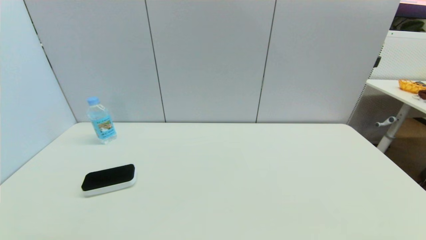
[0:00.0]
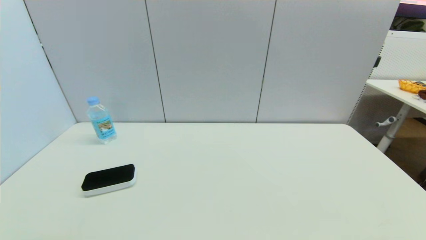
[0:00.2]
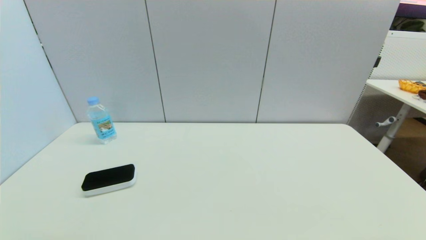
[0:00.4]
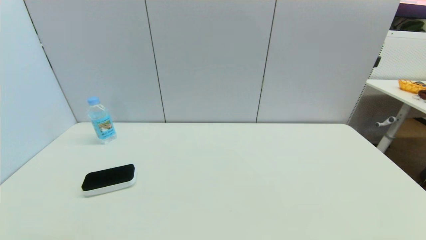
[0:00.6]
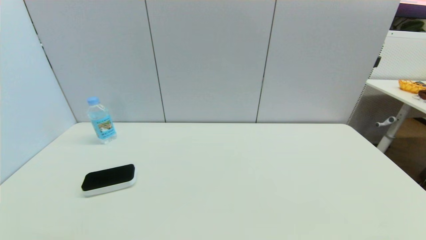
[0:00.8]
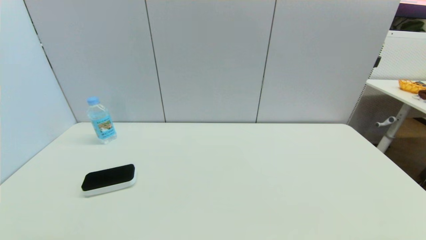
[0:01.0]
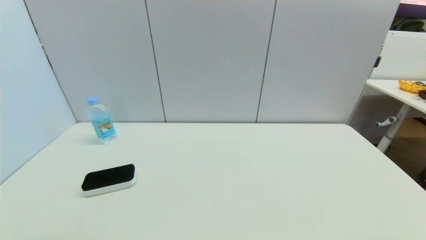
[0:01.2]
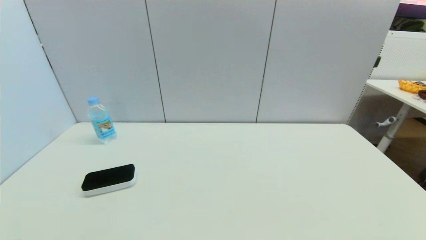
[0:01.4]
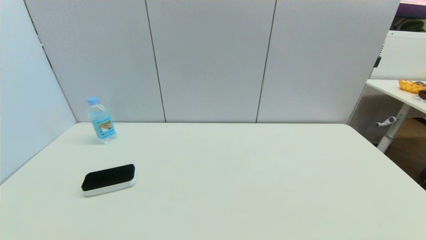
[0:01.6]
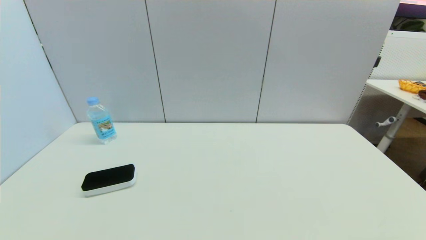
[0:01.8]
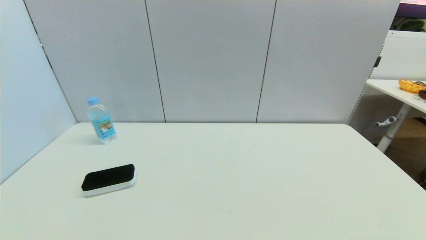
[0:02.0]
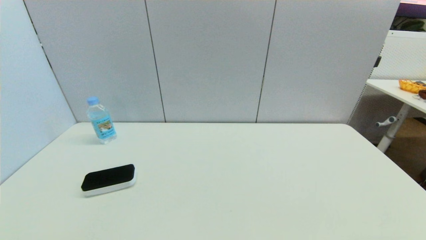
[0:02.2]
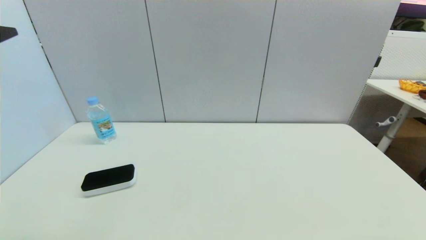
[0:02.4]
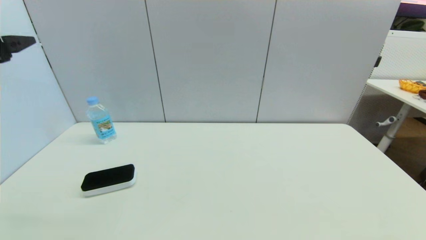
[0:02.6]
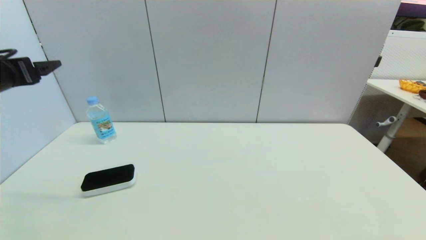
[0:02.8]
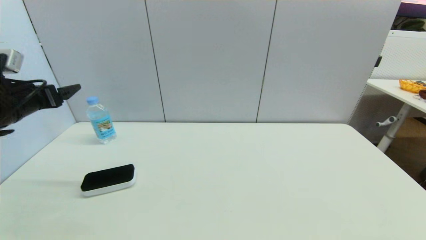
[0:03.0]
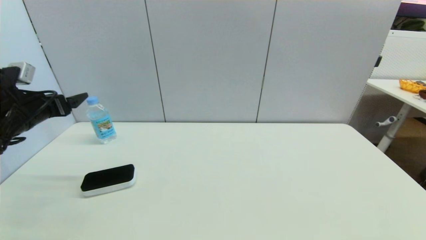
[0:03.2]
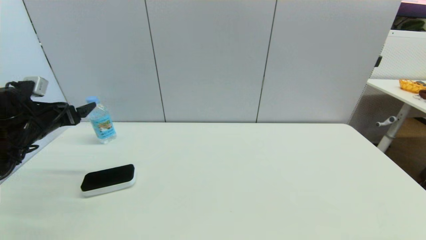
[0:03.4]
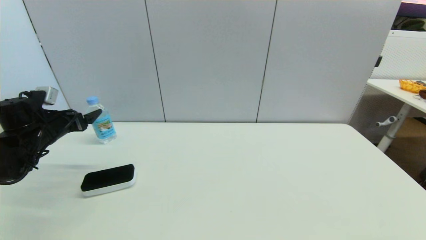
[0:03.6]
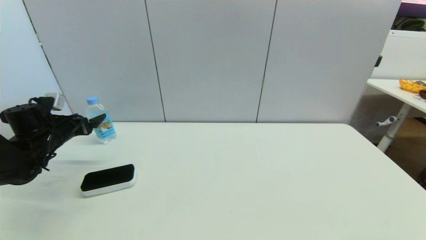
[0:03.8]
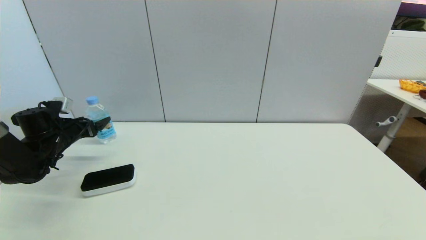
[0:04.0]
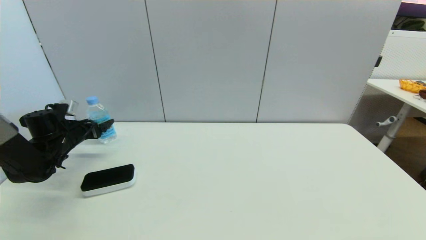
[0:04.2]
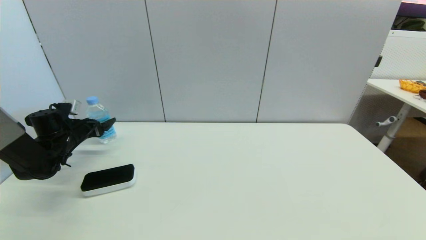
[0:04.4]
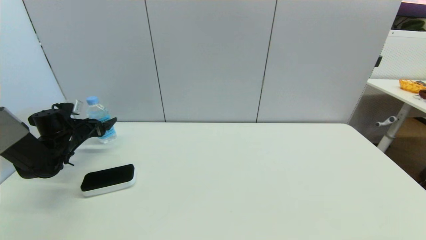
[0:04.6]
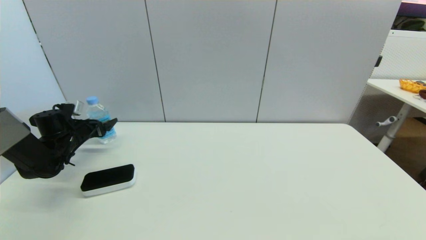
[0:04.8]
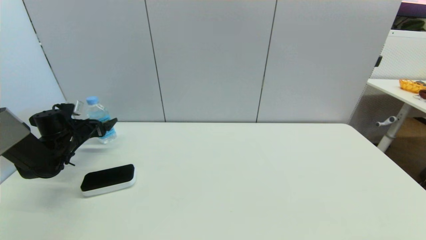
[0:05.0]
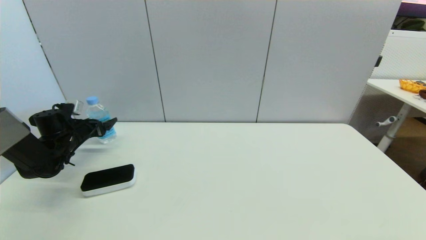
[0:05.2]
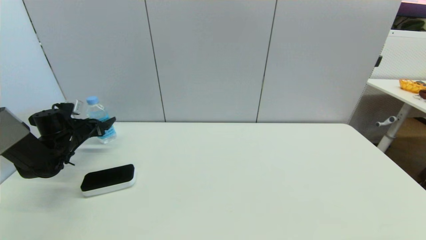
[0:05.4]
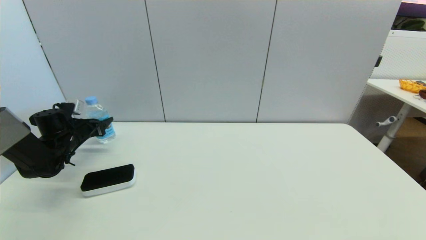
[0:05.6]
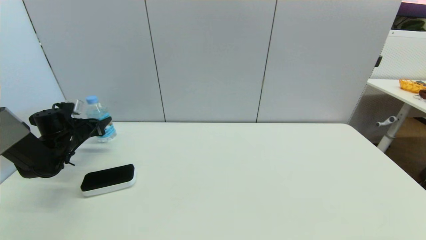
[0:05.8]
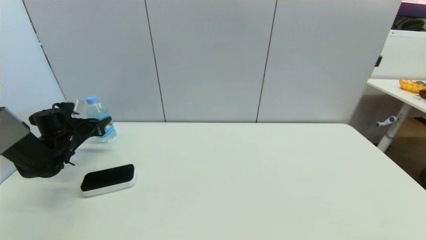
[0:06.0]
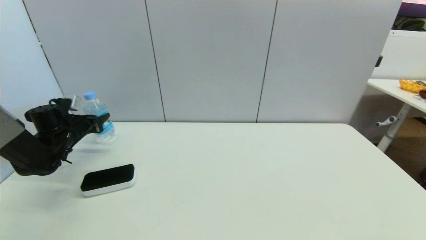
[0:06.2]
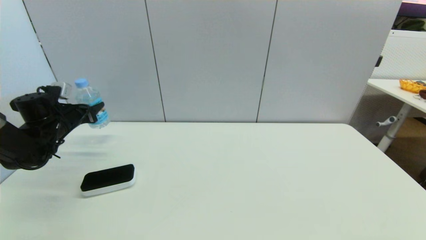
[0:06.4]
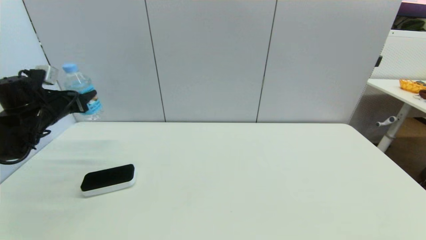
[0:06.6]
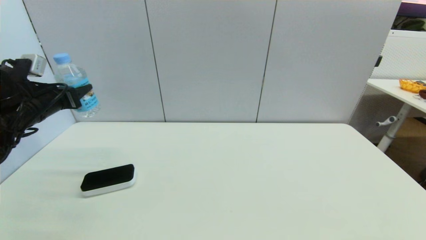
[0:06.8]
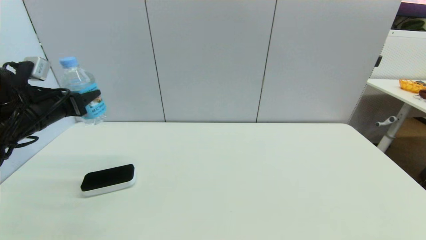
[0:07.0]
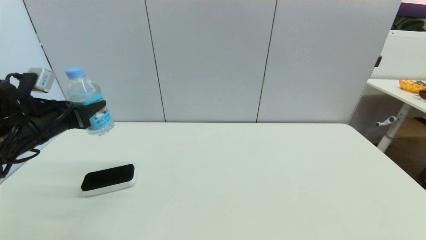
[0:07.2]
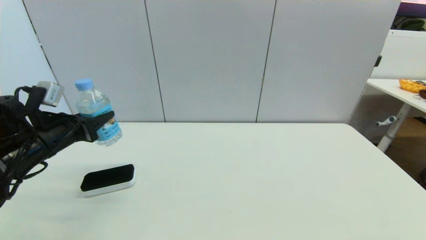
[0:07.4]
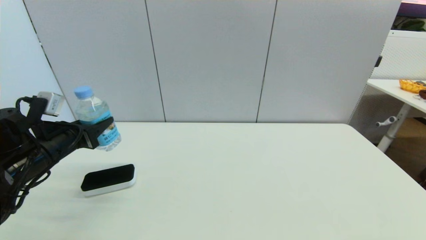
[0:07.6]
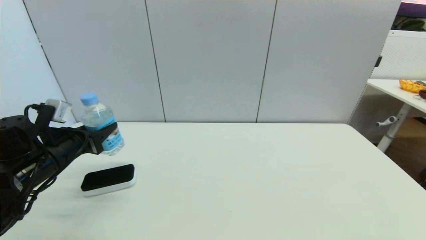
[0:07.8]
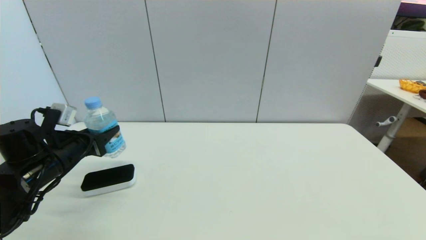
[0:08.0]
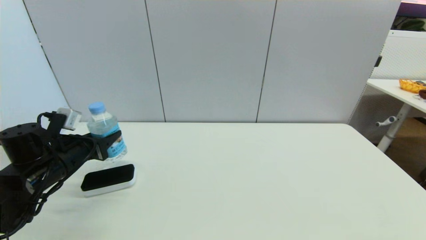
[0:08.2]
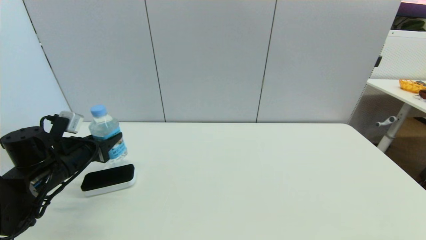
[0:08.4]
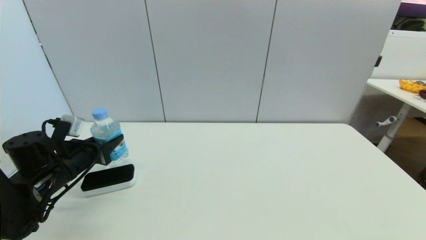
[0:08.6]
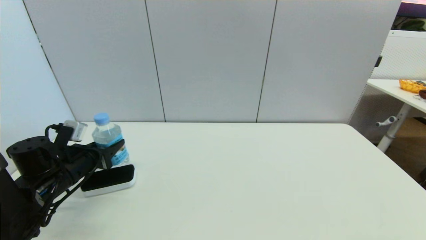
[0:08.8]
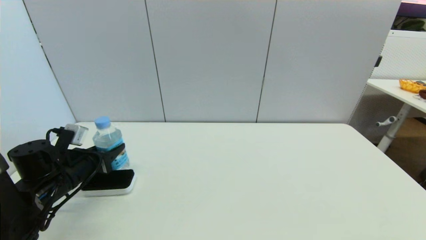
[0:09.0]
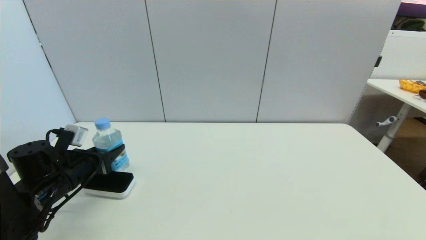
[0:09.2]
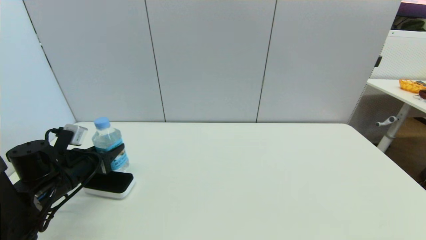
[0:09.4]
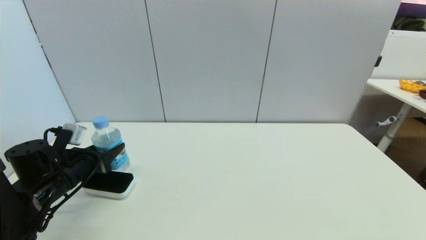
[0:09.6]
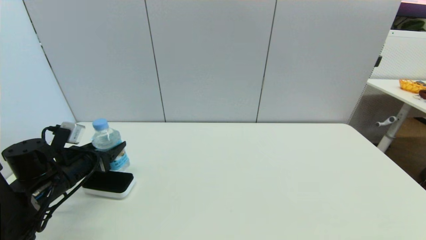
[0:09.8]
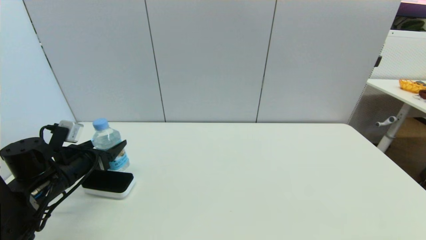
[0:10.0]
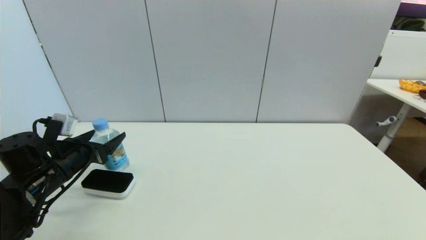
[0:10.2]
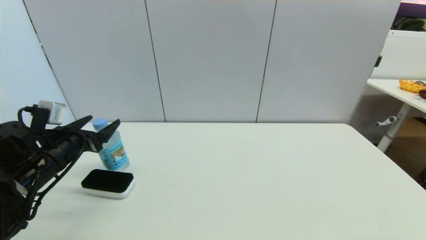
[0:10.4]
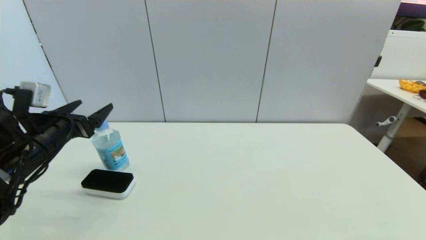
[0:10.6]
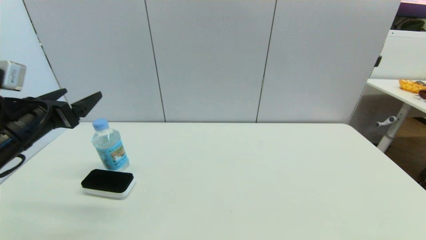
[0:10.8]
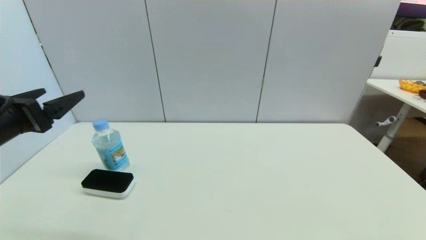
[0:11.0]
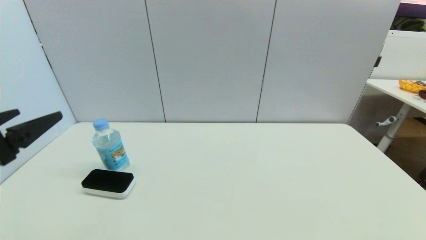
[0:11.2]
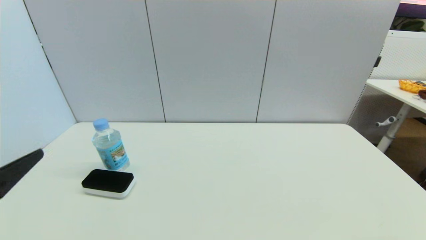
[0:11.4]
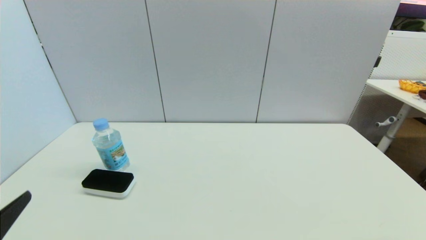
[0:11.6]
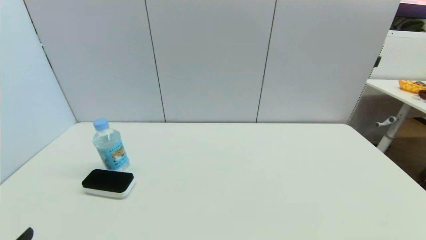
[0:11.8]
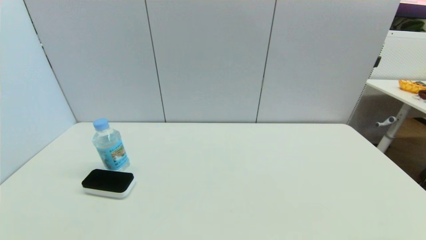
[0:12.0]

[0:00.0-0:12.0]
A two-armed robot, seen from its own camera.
Step, 0:02.4 to 0:05.8: Grasp the soda water with left gripper.
Step, 0:06.0 to 0:09.2: Place the soda water on the table with left gripper.
0:01.6 to 0:03.0: The left gripper travels forward by approximately 30 cm.
0:03.0 to 0:04.4: The left gripper goes roughly 20 cm downward and forward.
0:04.4 to 0:06.0: The left gripper closes.
0:06.0 to 0:07.6: The left gripper moves backward, to the right and upward, roughly 20 cm.
0:07.6 to 0:09.0: The left gripper moves downward, approximately 5 cm.
0:09.0 to 0:10.4: The left gripper moves upward, roughly 5 cm, and opens up.
0:10.4 to 0:12.0: The left gripper travels backward by about 30 cm.

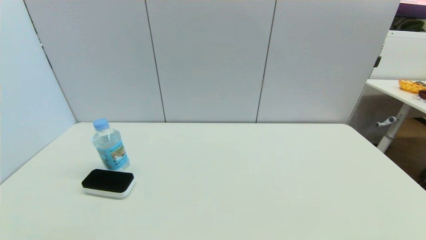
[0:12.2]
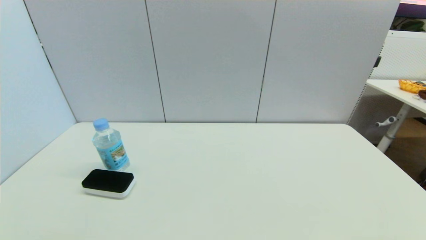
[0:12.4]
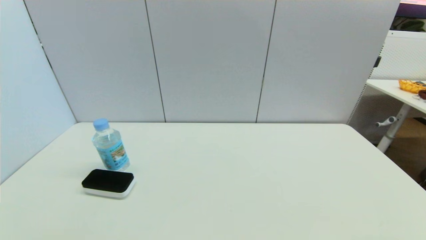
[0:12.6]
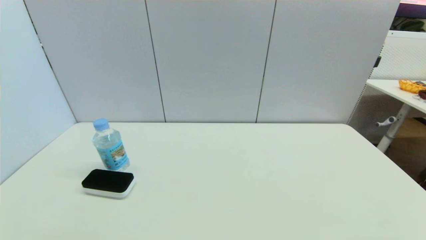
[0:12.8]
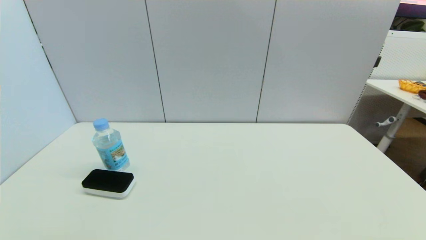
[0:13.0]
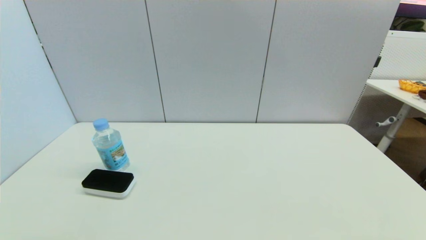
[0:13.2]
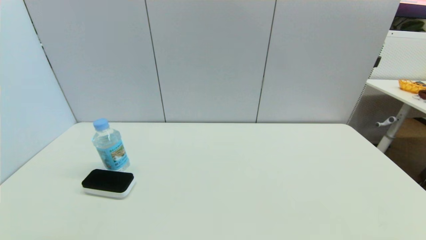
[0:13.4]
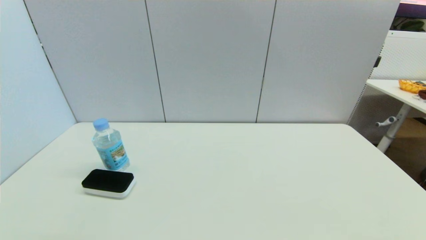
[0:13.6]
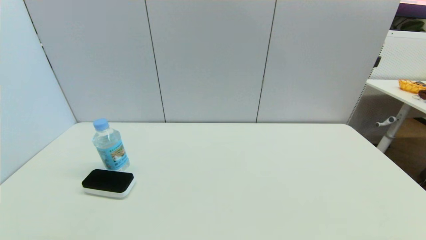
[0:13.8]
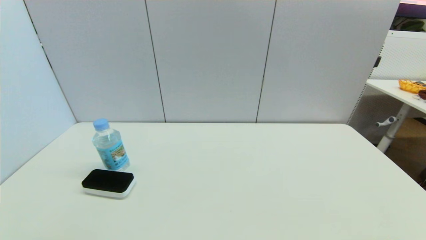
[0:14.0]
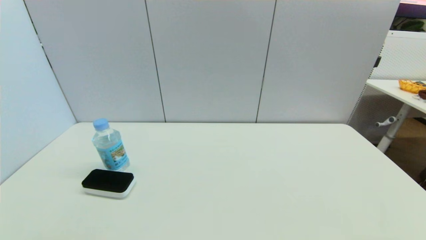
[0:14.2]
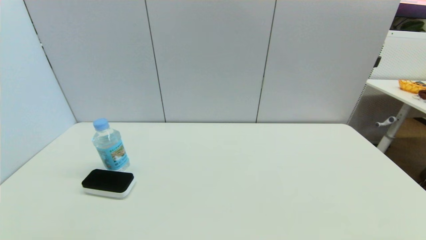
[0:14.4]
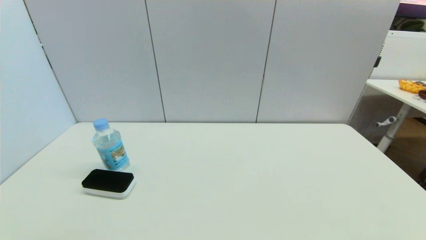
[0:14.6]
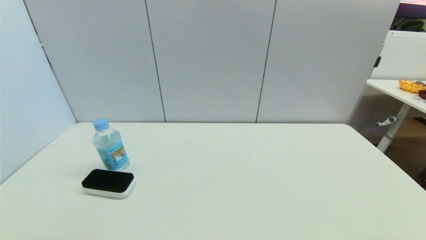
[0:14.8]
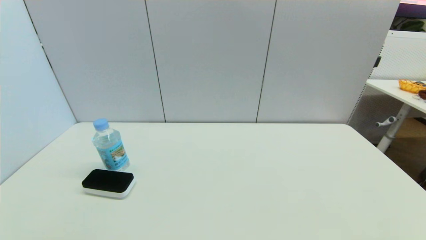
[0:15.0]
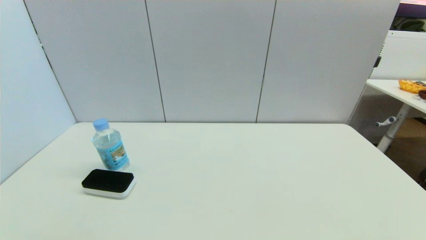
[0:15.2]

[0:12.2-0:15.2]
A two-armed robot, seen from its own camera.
0:13.8 to 0:15.2: The two grippers keep their place.
